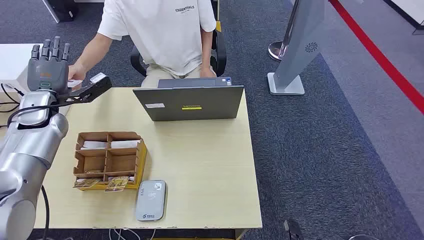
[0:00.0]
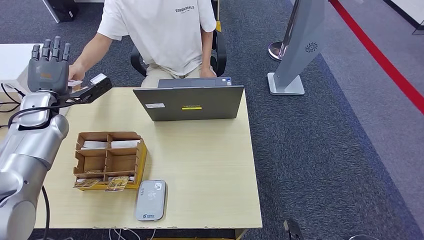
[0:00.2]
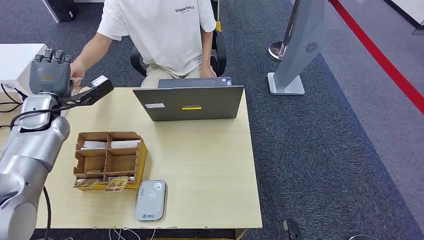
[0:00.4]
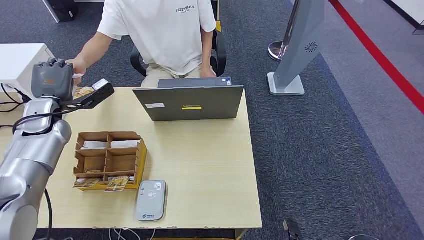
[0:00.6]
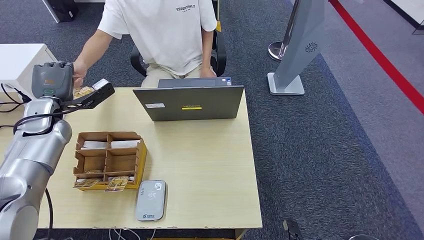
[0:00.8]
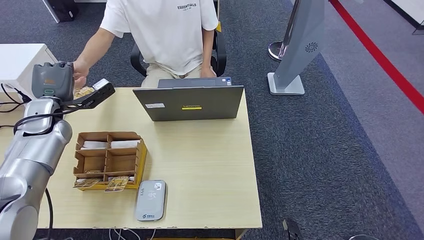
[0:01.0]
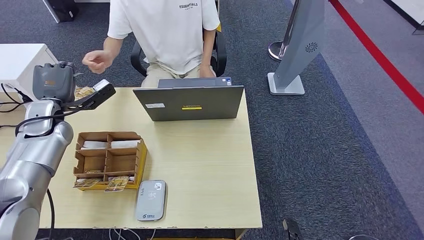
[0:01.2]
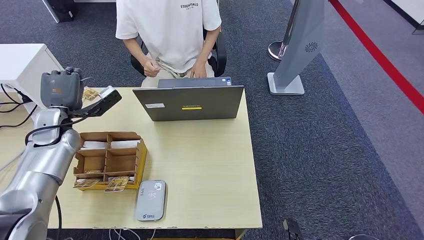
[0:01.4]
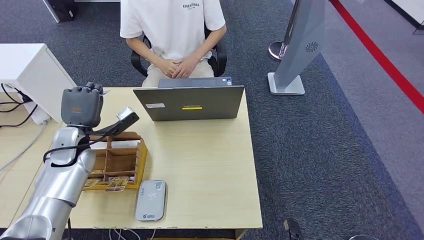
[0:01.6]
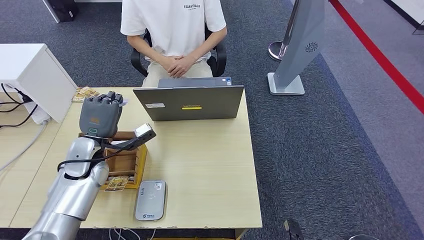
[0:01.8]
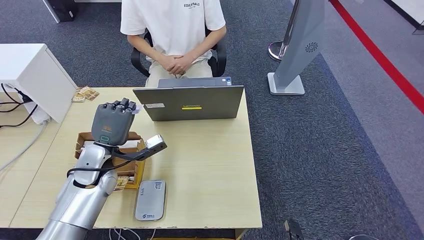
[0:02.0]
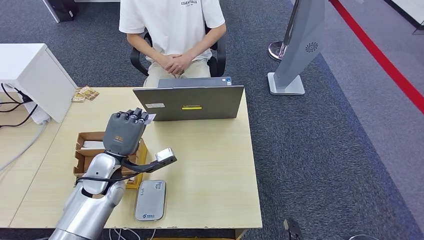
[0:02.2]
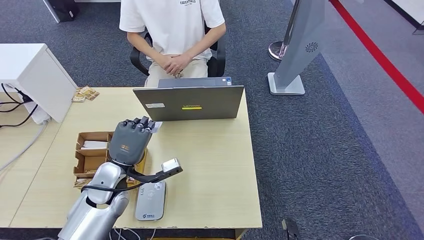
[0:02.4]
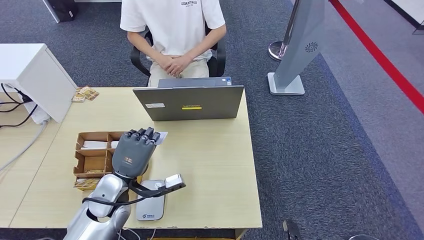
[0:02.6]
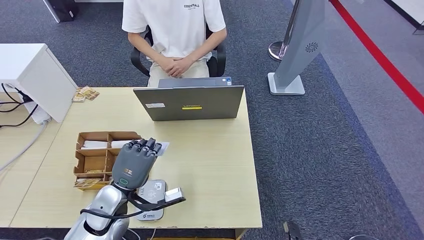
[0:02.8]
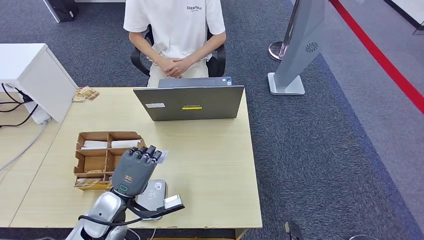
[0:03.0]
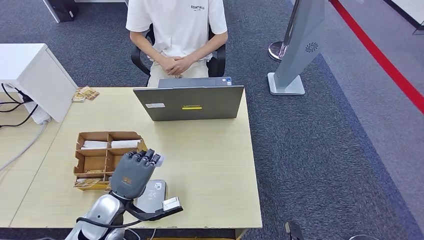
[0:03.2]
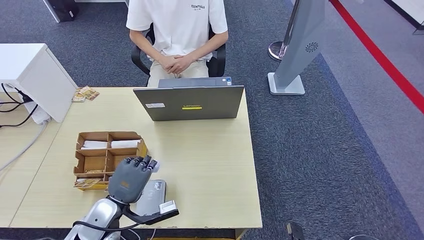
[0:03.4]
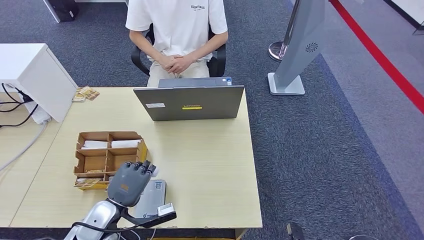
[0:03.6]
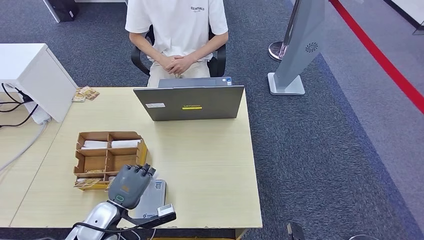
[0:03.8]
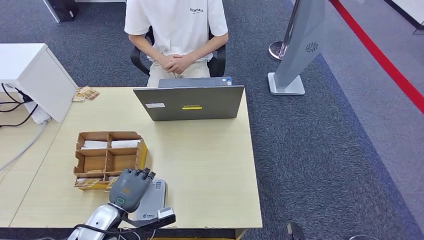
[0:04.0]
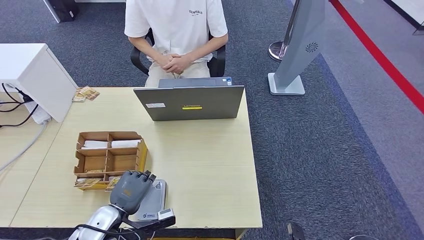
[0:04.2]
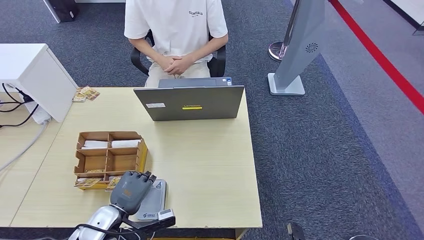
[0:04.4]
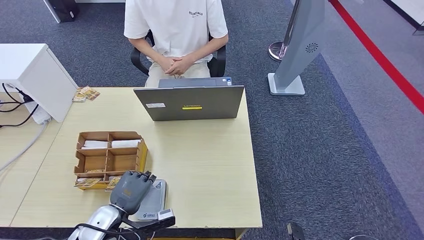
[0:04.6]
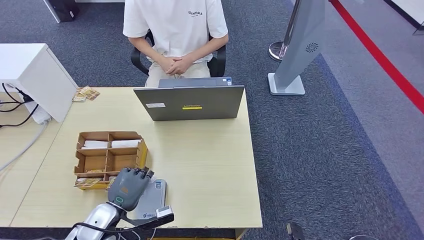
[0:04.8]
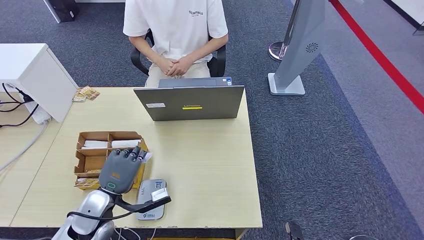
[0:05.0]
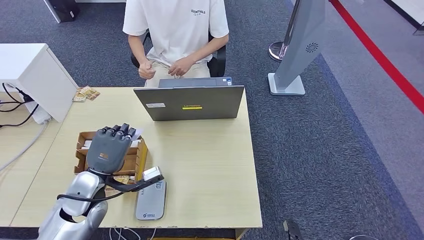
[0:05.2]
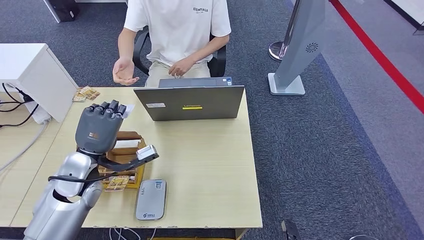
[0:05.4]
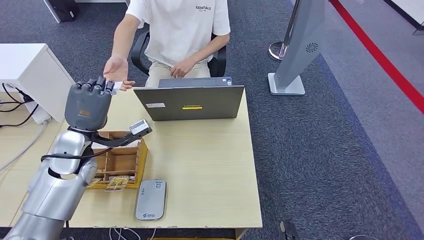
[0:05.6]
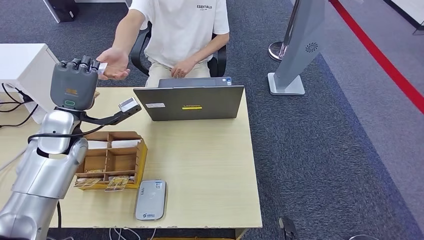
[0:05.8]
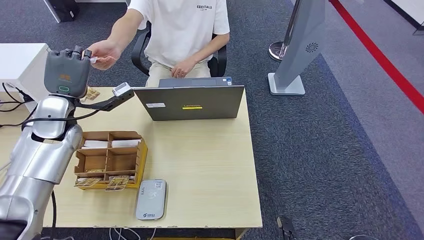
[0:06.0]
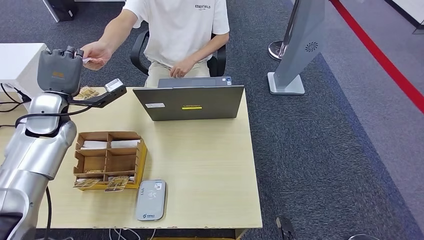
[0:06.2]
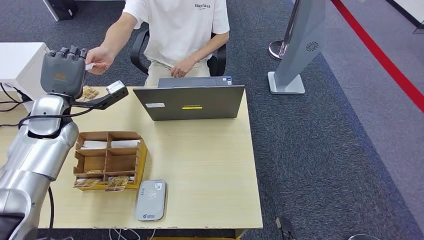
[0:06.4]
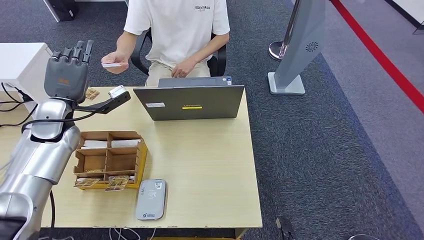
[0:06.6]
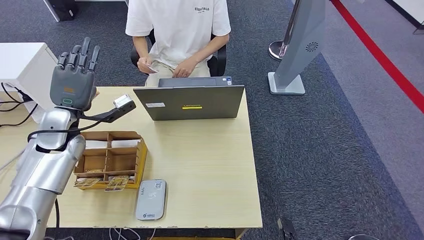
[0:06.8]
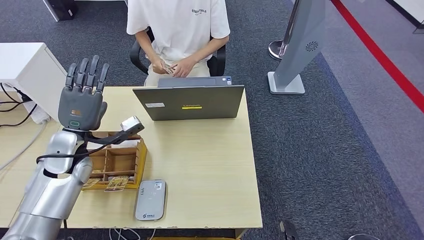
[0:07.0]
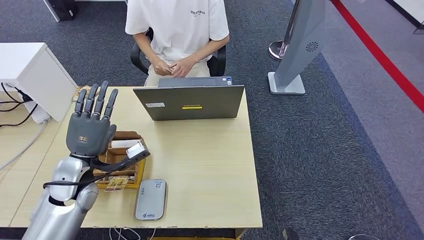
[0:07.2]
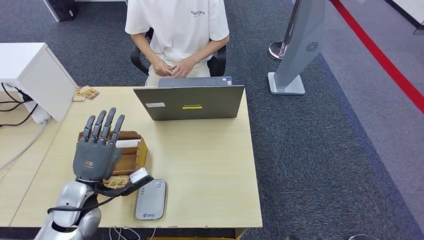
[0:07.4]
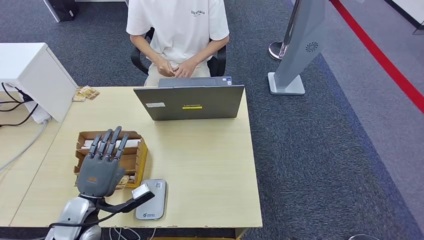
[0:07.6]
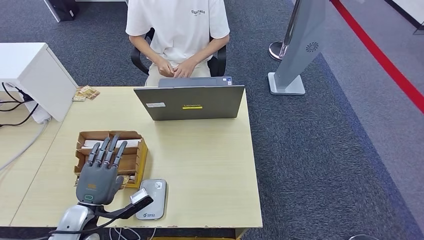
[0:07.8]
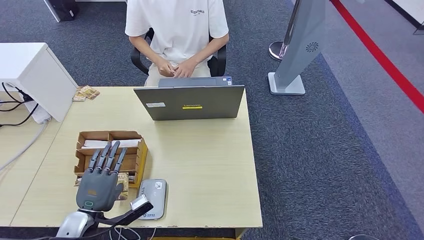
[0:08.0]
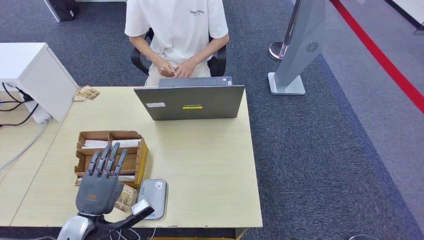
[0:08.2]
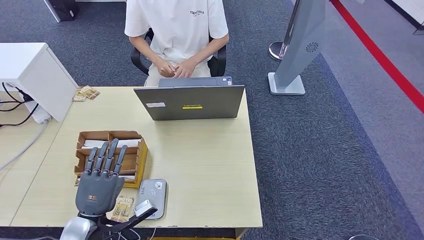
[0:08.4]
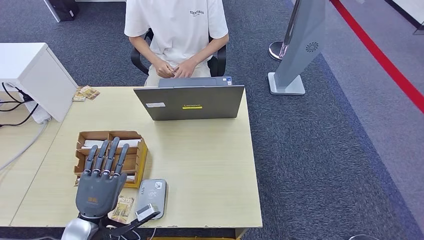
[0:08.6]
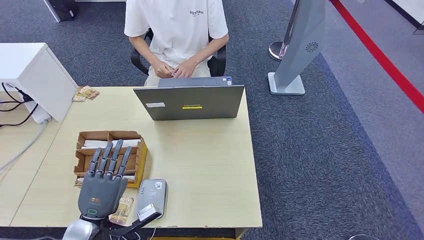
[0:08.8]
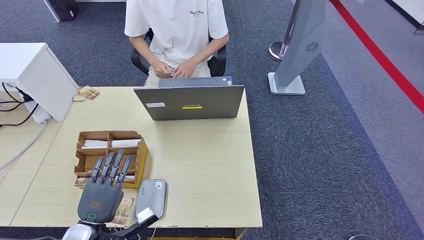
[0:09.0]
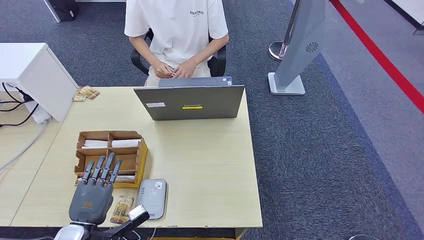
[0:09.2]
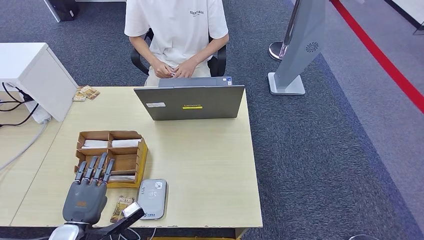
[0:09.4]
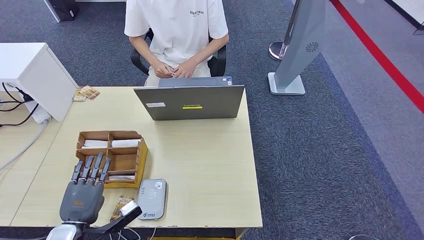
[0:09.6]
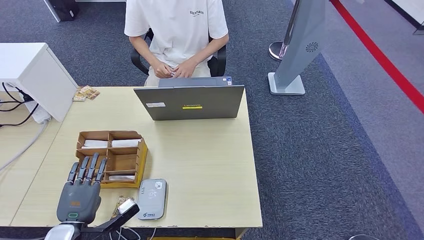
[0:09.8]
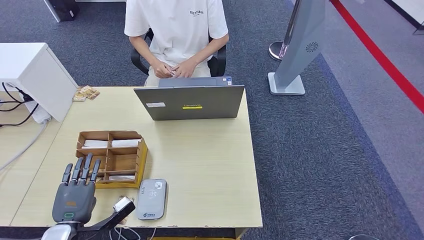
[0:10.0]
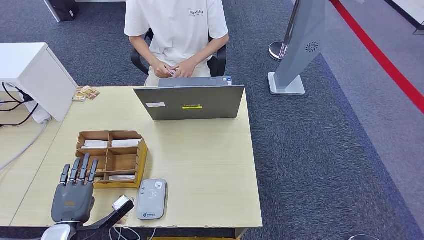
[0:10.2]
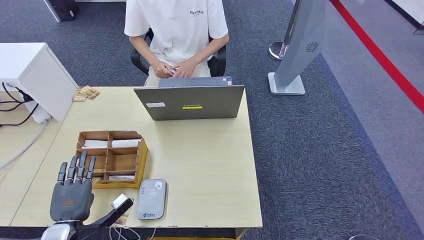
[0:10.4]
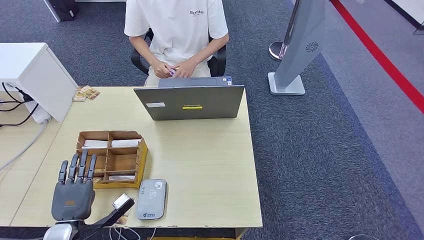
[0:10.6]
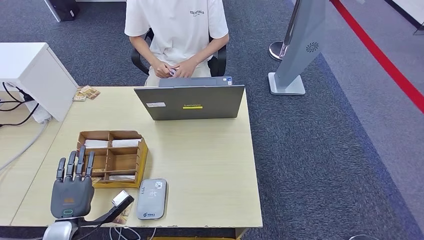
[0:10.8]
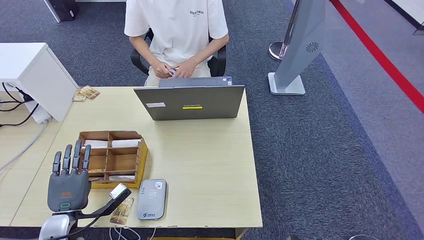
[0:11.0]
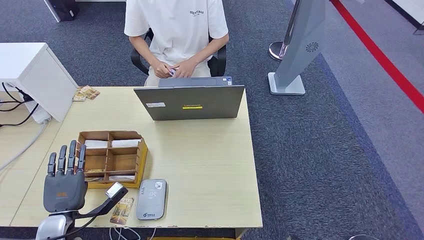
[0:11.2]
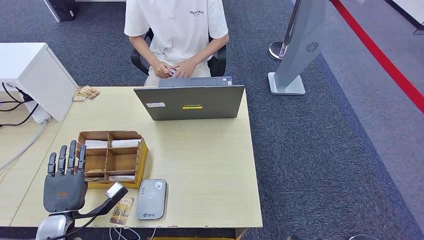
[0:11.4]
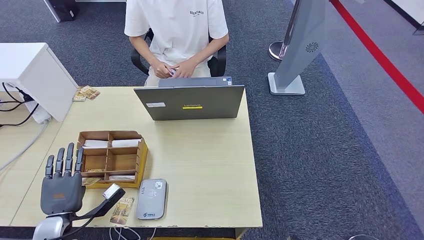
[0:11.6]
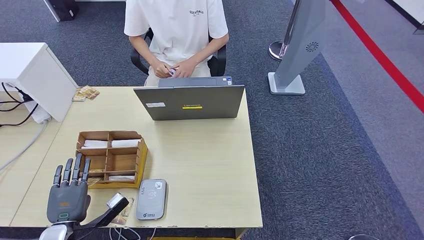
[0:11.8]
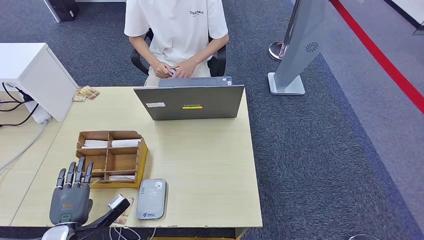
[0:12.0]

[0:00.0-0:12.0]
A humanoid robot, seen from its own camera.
Step, 0:00.0 to 0:02.2: Take the ID card from the person's hand.
Step, 0:02.4 to 0:05.6: Place the ID card on the card reader.
Step, 0:06.0 to 0:08.8: Hand the ID card to the person.
0:01.6 to 0:03.0: The left hand goes approximately 20 cm backward, to the right and downward.
0:03.0 to 0:04.4: The left hand moves about 5 cm.
0:04.4 to 0:06.0: The left hand shifts roughly 30 cm upward and forward.
0:06.0 to 0:07.6: The left hand travels backward and downward by roughly 25 cm, while the right hand heads backward, covering approximately 5 cm.
0:07.6 to 0:09.0: The left hand shifts some 5 cm backward.
0:09.0 to 0:10.4: The left hand travels to the left by some 5 cm.
0:10.4 to 0:12.0: There are only small adjustments of the hands.

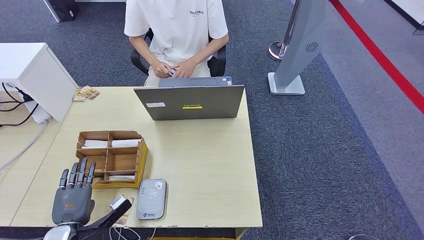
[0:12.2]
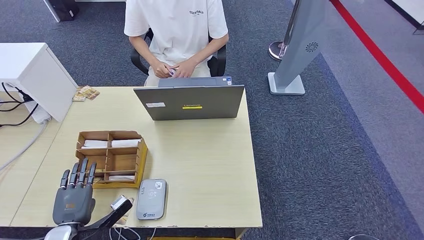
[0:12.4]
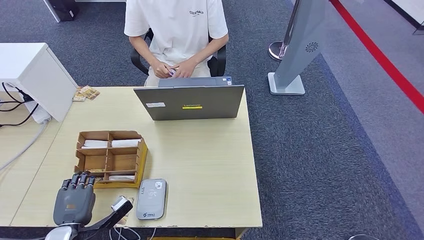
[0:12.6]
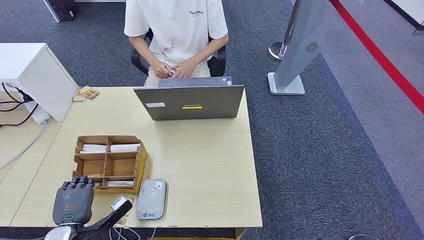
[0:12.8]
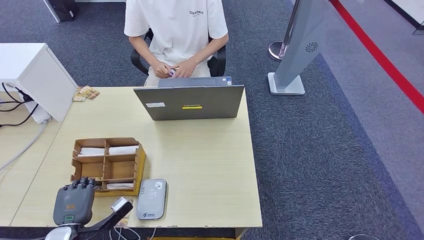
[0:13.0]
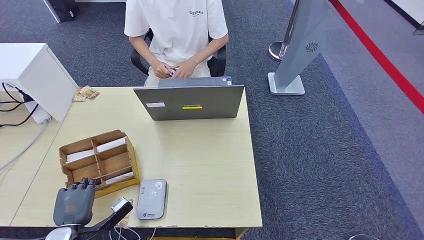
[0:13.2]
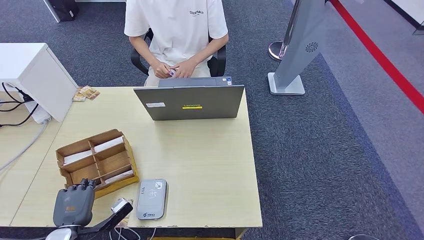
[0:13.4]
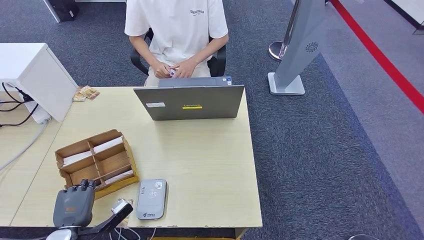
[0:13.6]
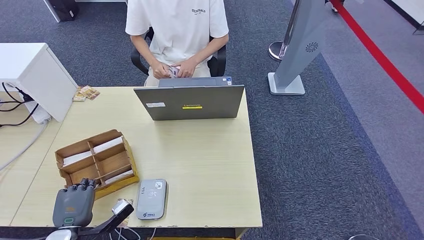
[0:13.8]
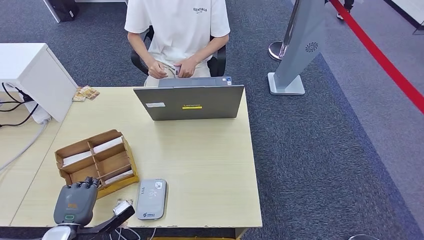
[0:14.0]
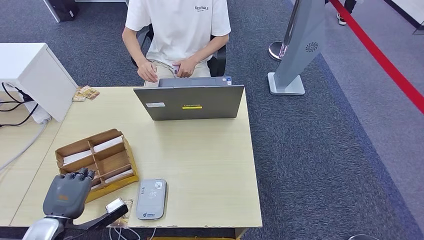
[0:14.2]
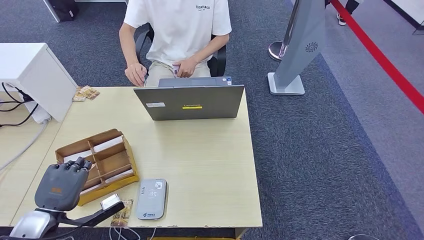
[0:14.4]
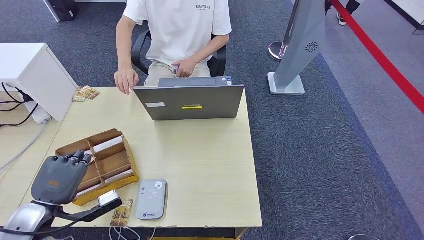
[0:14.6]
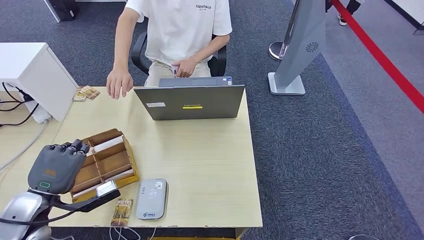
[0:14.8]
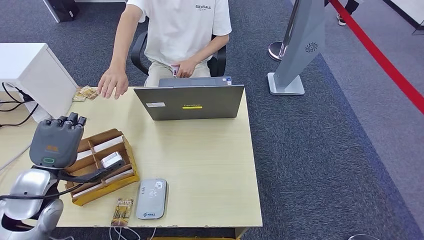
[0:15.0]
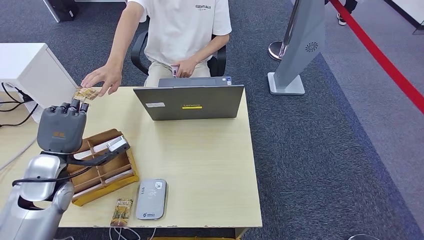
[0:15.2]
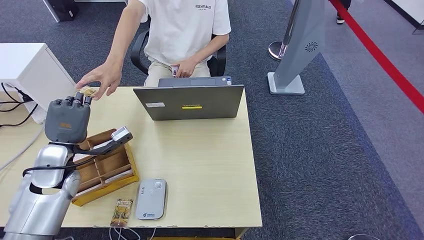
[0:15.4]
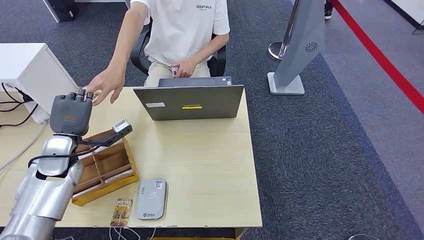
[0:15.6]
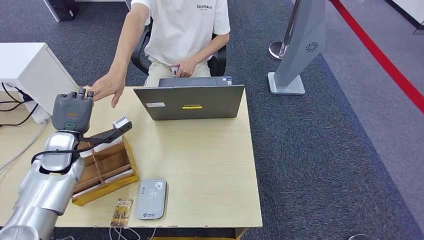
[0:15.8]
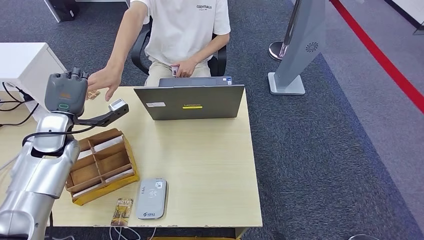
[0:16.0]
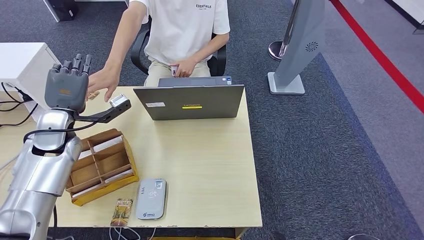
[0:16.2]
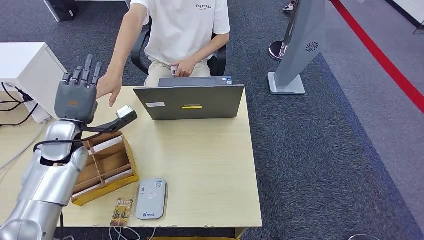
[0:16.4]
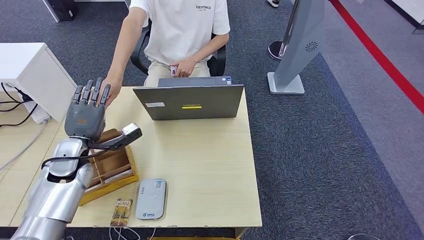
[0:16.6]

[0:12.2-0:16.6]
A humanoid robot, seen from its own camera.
Step, 0:12.2 to 0:15.0: Pick up the room key from the key card box.
0:12.2 to 0:13.6: Neither hand changes place.
0:13.6 to 0:15.2: The left hand travels upward and forward by approximately 20 cm.
0:15.2 to 0:16.6: The left hand moves forward, about 5 cm.
